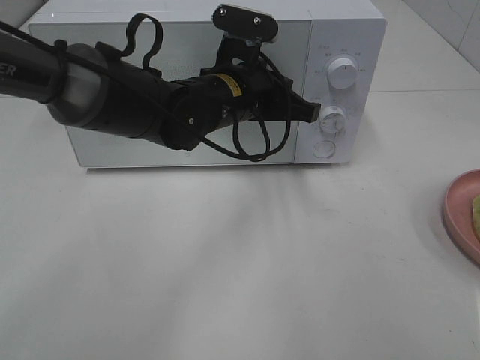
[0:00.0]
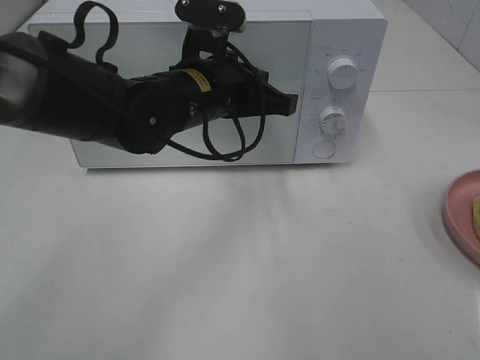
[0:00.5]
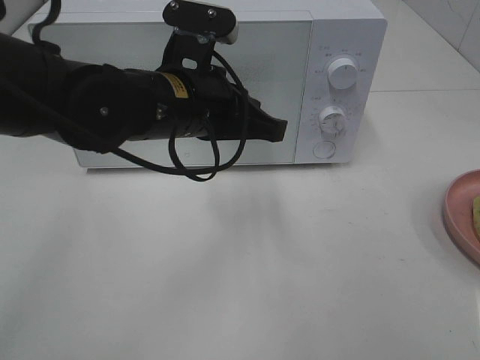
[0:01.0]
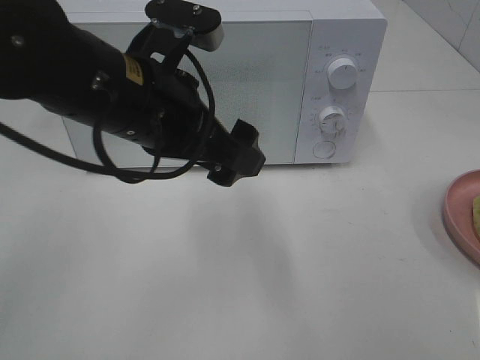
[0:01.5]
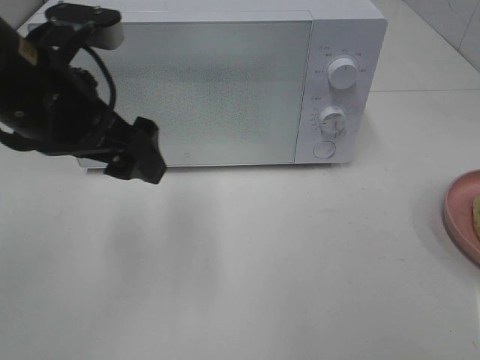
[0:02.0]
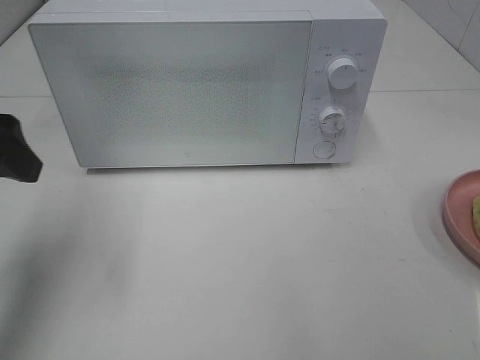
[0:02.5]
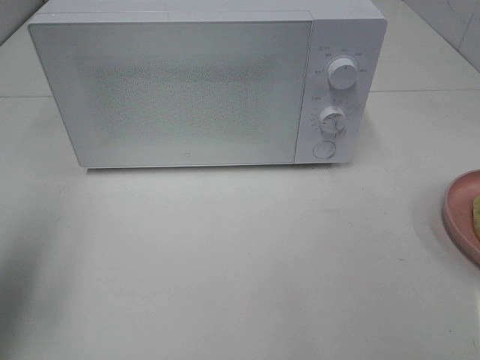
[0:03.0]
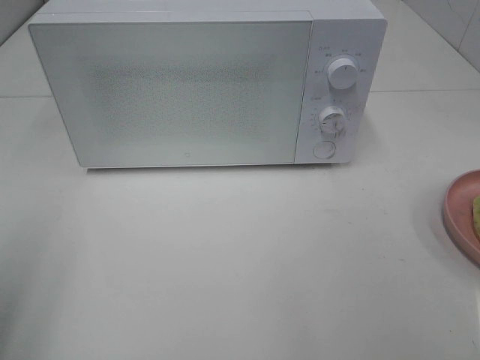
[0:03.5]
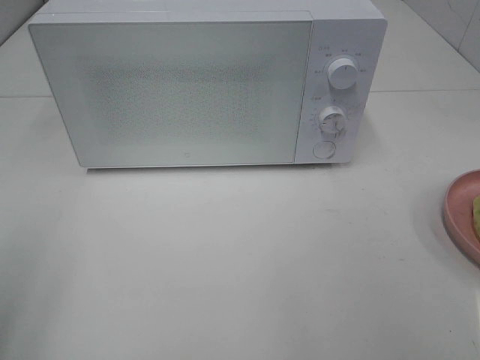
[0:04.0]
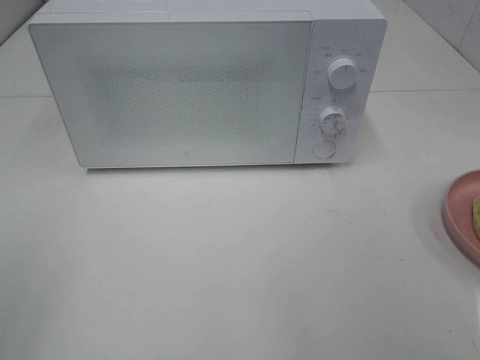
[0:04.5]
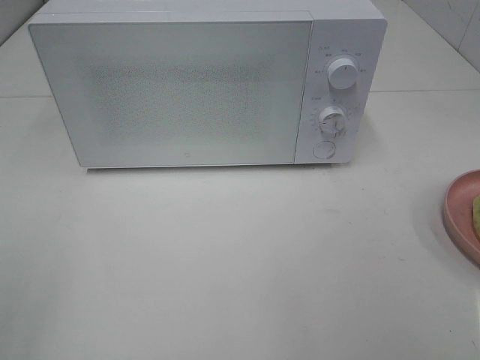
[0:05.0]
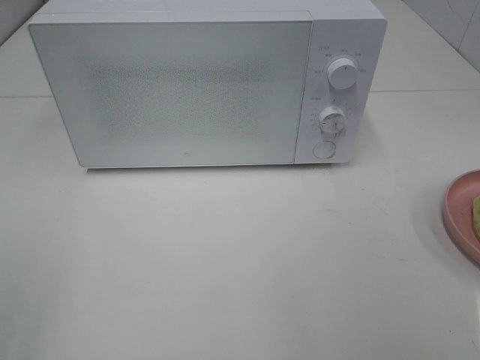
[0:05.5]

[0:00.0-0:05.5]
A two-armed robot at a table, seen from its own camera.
Task of the whole recording: Heat Sandwich.
0:00.0 to 0:02.0: The left gripper moves to the left, backward and upward, some 20 cm, and opens.
0:02.0 to 0:03.5: The left gripper shifts about 25 cm backward and to the left.

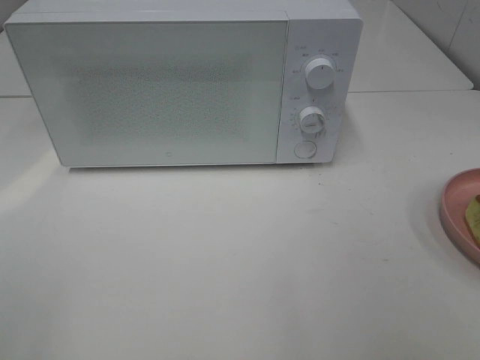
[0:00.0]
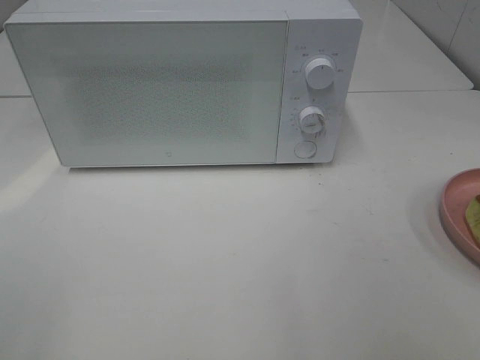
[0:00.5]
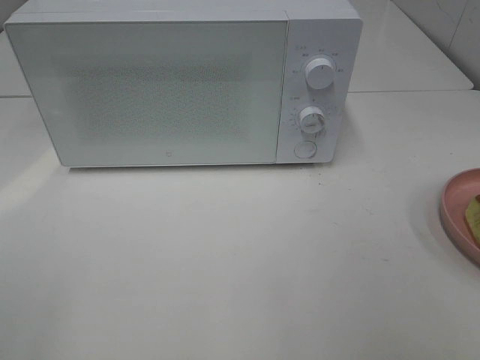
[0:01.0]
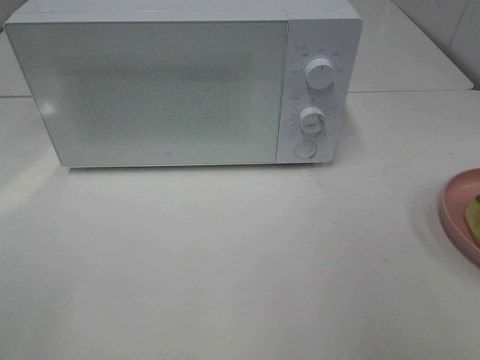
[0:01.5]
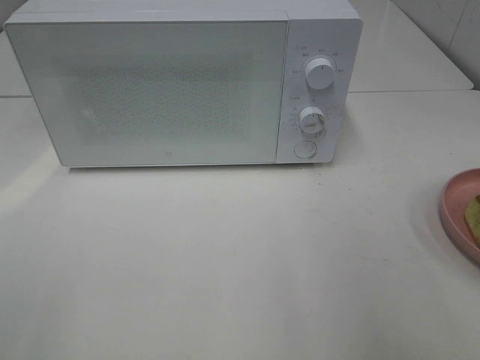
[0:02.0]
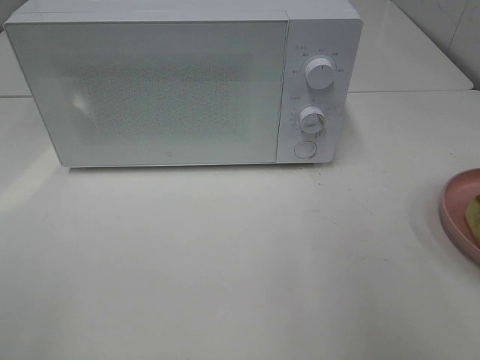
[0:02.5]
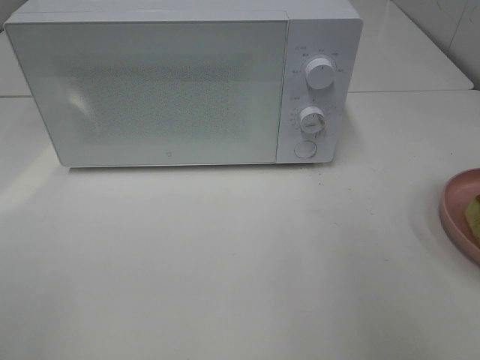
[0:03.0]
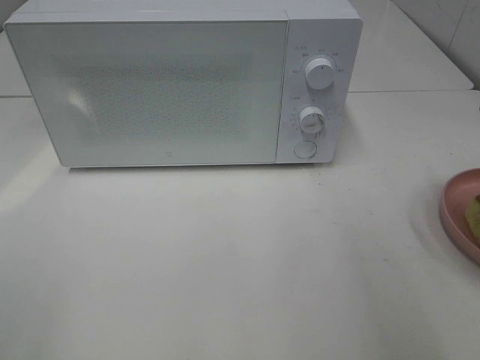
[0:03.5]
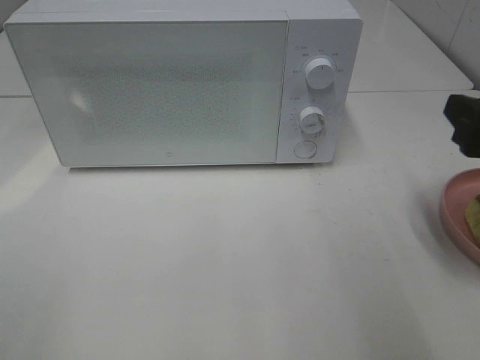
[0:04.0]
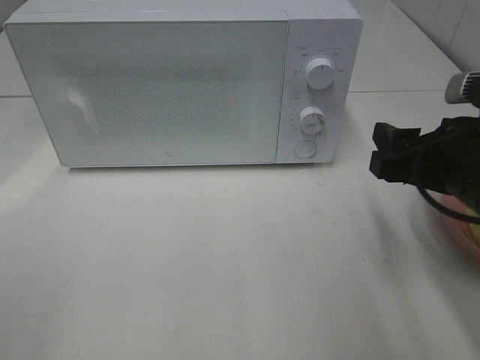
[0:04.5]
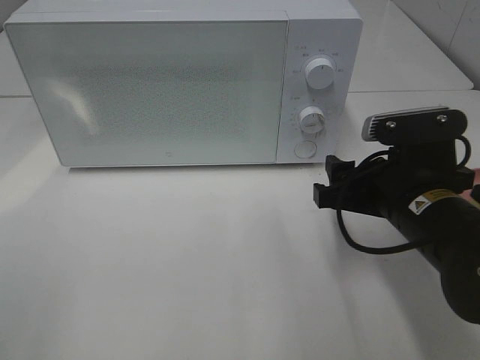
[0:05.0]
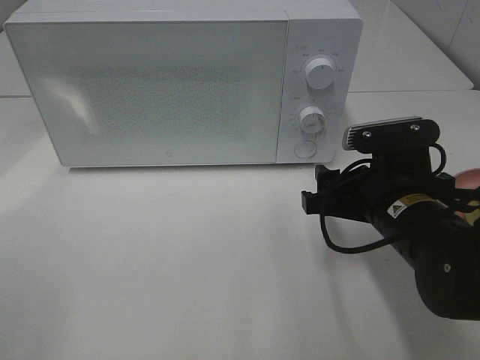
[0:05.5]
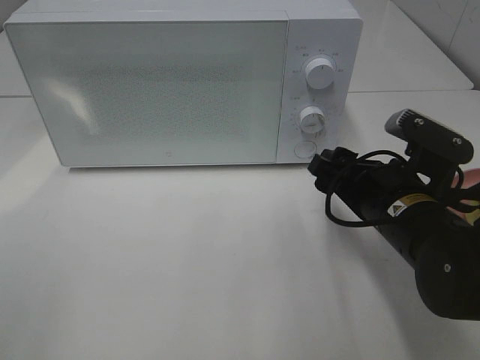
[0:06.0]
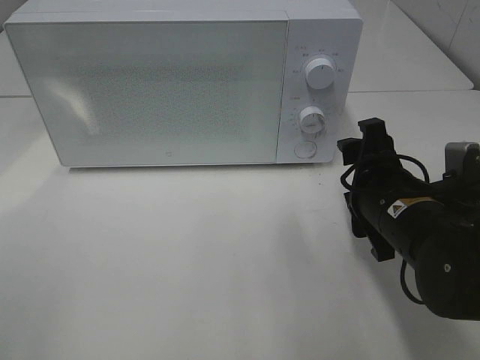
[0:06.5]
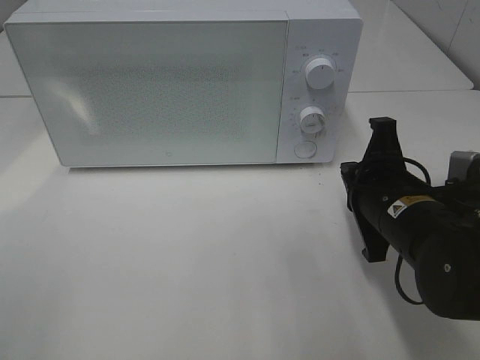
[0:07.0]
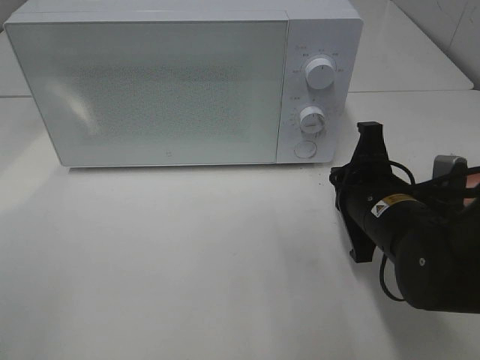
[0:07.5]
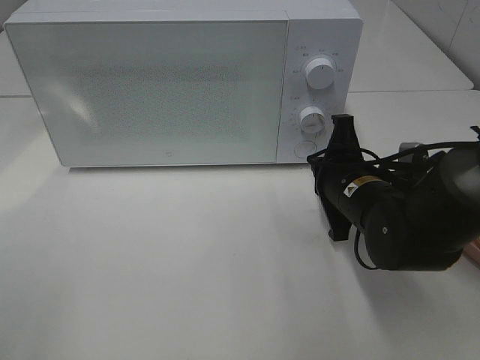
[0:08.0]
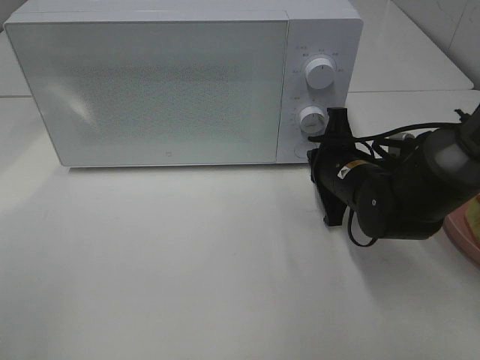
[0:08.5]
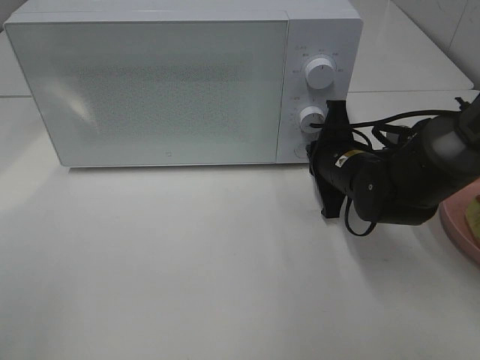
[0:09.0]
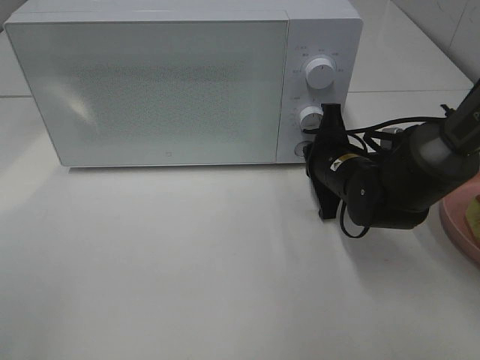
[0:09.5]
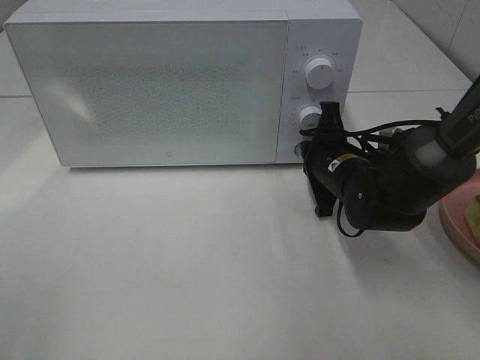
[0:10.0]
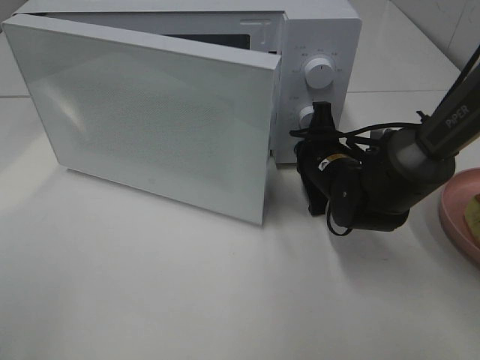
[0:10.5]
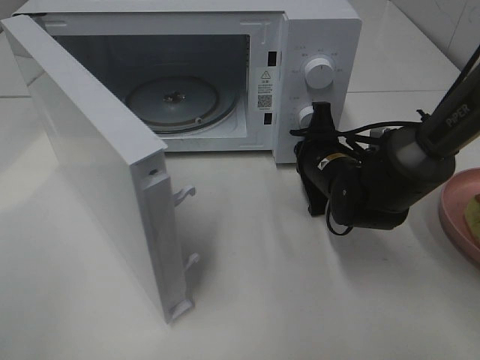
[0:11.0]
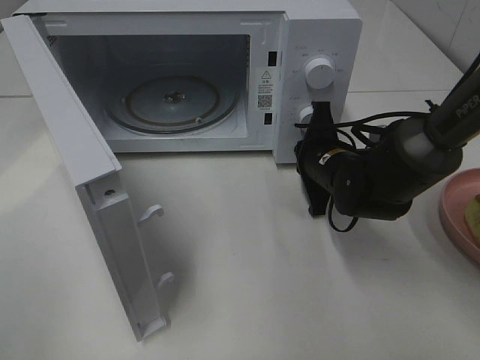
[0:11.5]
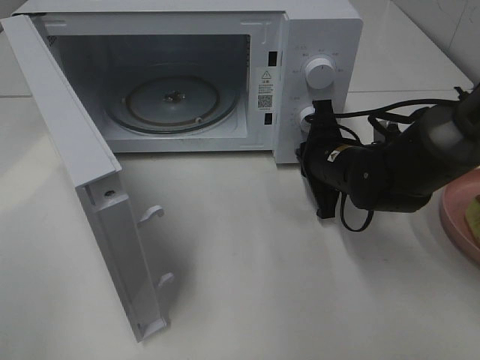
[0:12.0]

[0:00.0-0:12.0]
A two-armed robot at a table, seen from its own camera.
Task of the whole recording: Heat Sandwich.
0:02.0 to 0:04.0: The right gripper is displaced downward and forward by roughly 10 cm.
0:04.0 to 0:06.0: The right gripper travels to the left and downward by about 15 cm.
0:06.0 to 0:08.0: The right gripper is displaced forward by some 5 cm, and closes up.
0:08.0 to 0:10.0: The right gripper is displaced forward by roughly 5 cm.

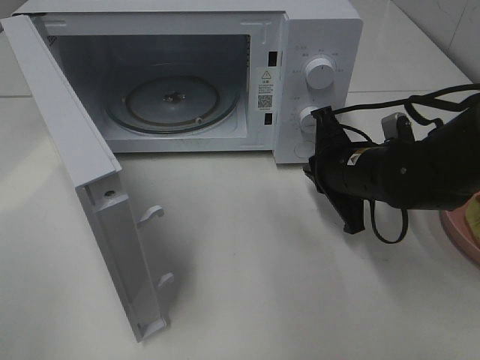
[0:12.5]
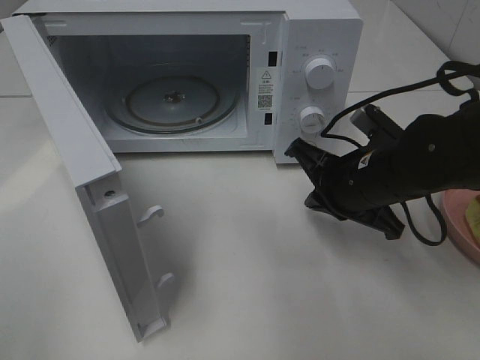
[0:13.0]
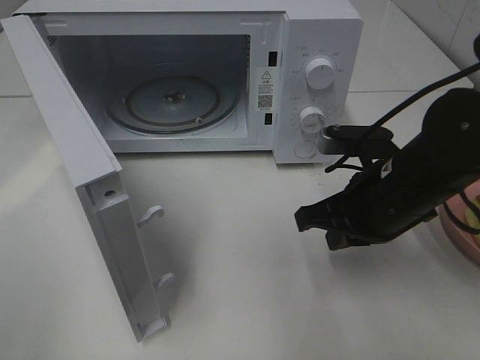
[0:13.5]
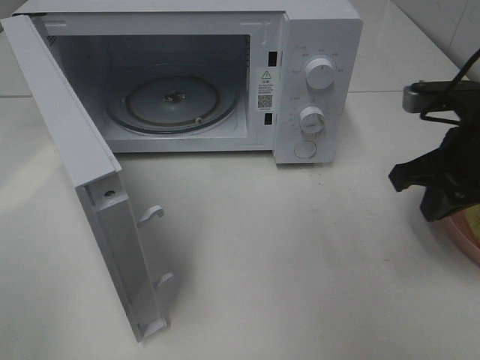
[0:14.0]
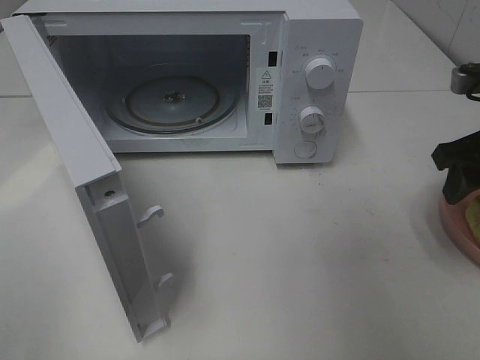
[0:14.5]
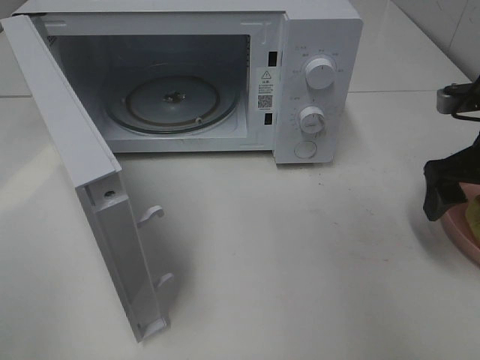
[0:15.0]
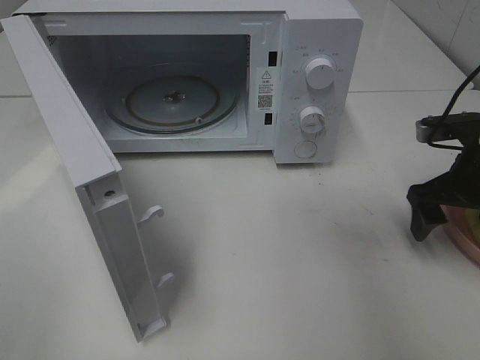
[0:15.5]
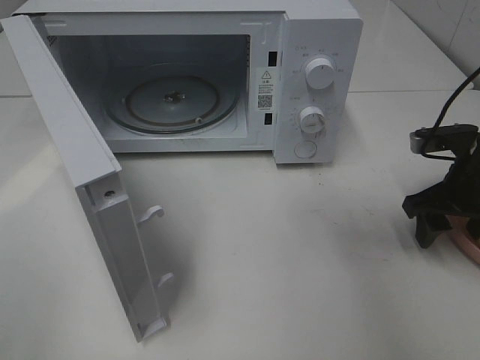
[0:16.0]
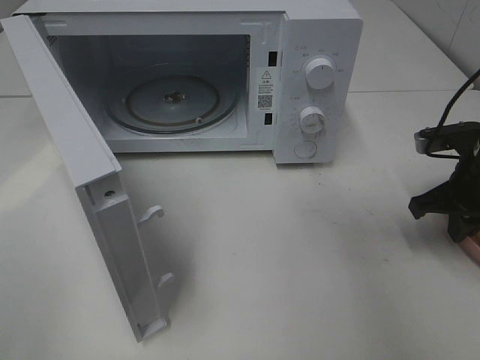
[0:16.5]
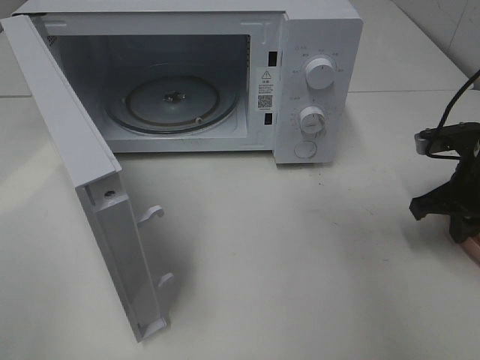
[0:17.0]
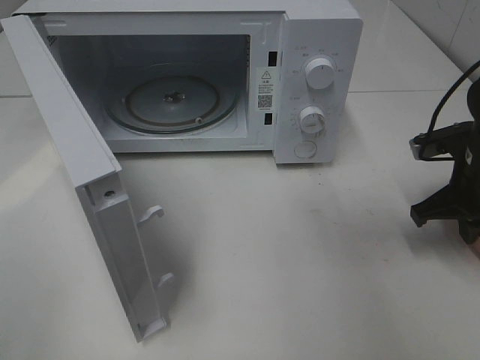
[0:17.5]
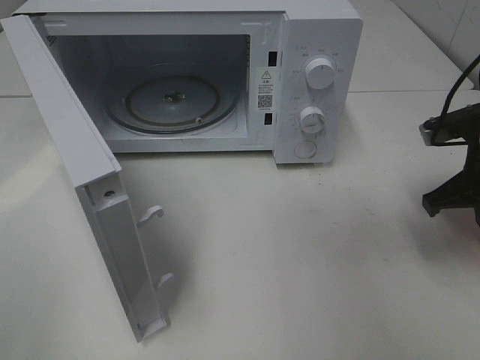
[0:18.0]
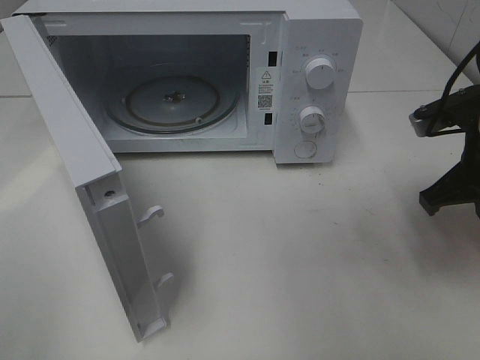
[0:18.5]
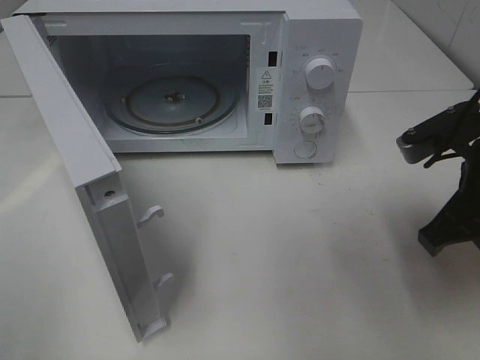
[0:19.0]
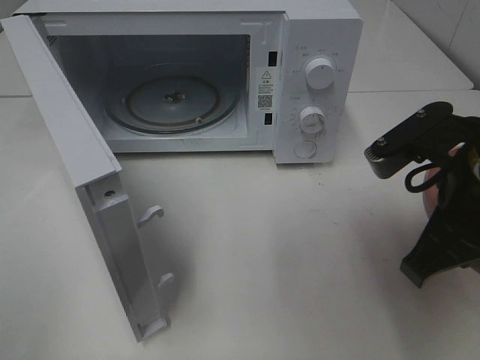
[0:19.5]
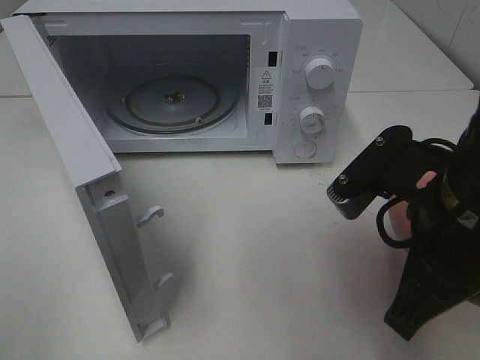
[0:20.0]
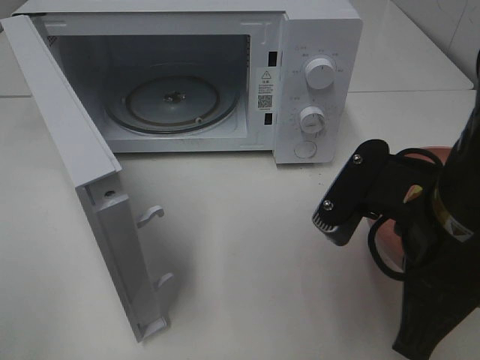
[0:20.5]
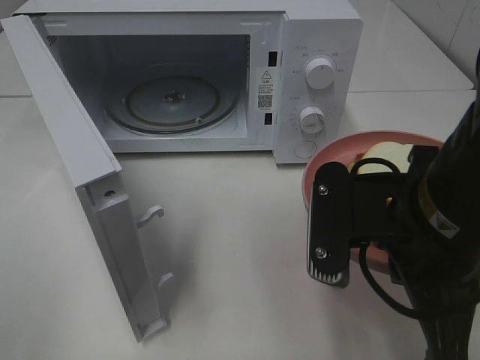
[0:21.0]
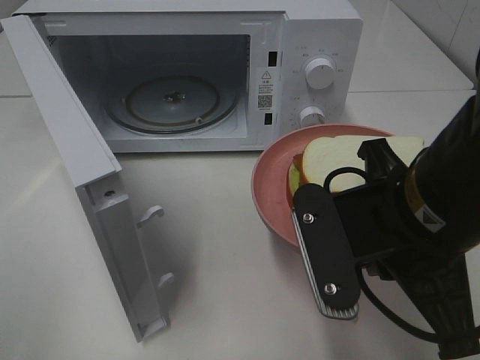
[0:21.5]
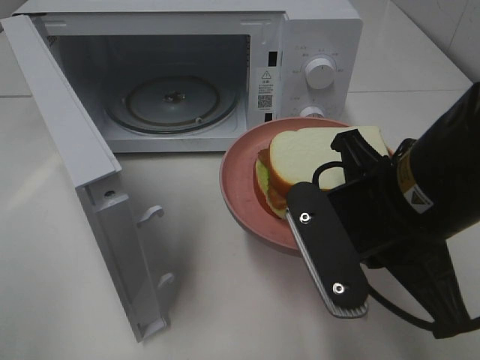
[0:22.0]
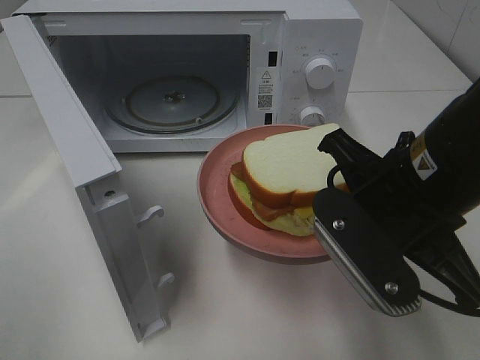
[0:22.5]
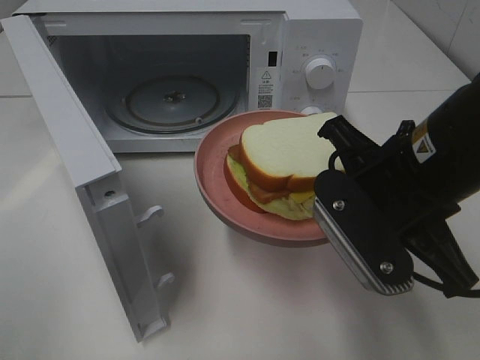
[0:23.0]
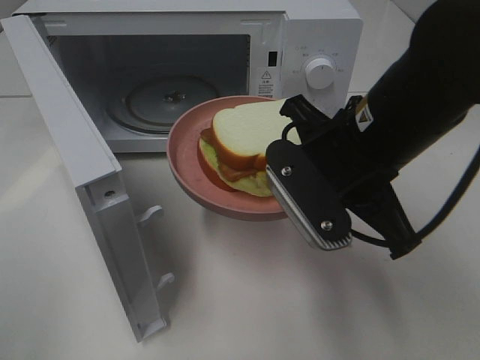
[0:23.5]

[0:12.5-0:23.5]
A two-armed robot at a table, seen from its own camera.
Task of the whole recording: Heat Sandwich.
Step, 0:12.5 to 0:16.5: Right hand: grab the plate with the sandwich.
0:12.5 to 0:14.5: The right gripper goes roughly 15 cm to the right and upward, and opens.
0:14.5 to 0:16.0: The right gripper is displaced downward by some 10 cm.
0:16.0 to 0:18.0: The right gripper closes up.
0:18.0 to 0:20.0: The right gripper travels backward, to the left and upward by some 20 cm.
0:21.5 to 0:23.5: The right gripper moves forward, approximately 5 cm.
